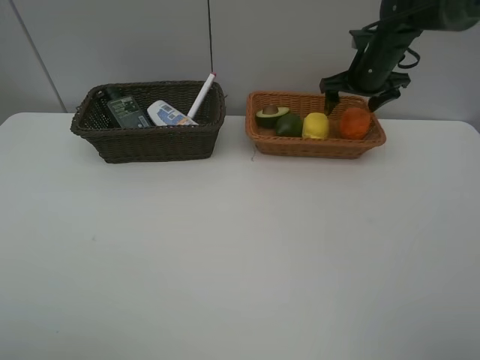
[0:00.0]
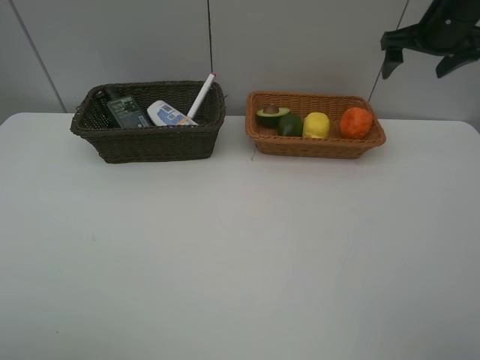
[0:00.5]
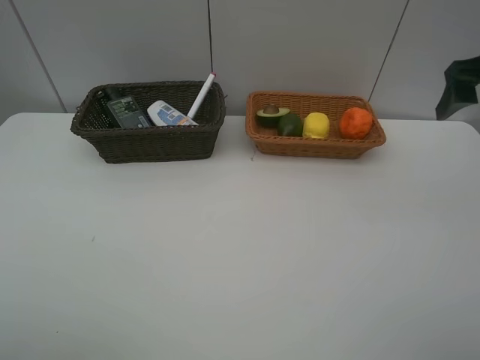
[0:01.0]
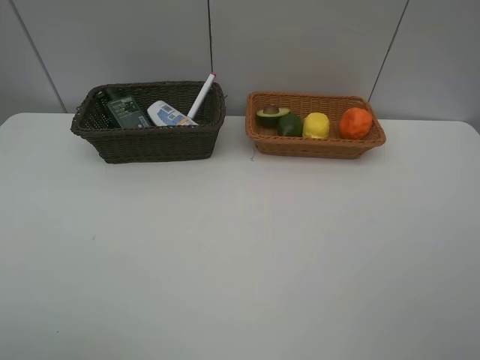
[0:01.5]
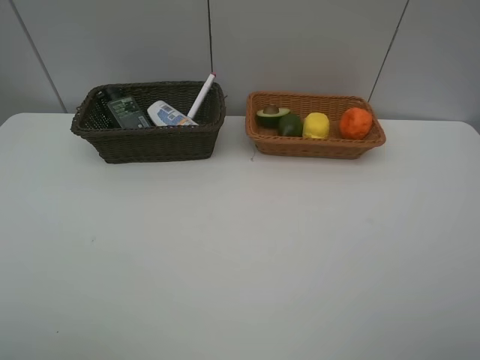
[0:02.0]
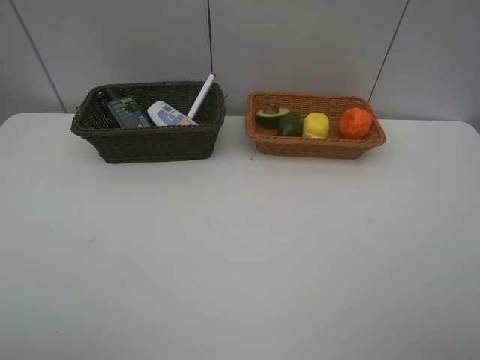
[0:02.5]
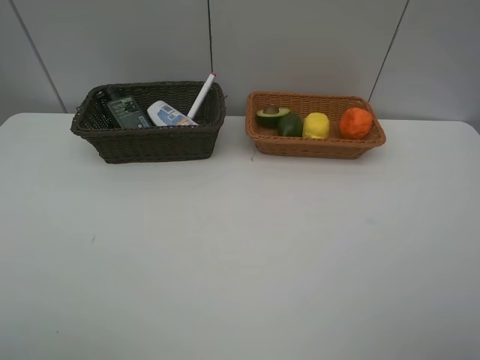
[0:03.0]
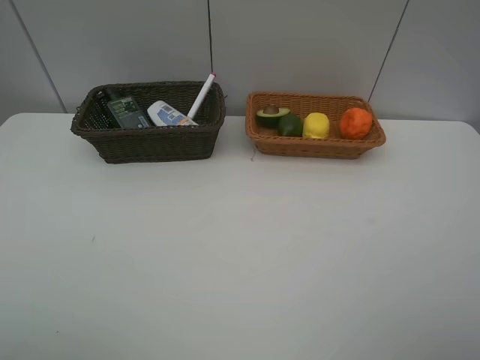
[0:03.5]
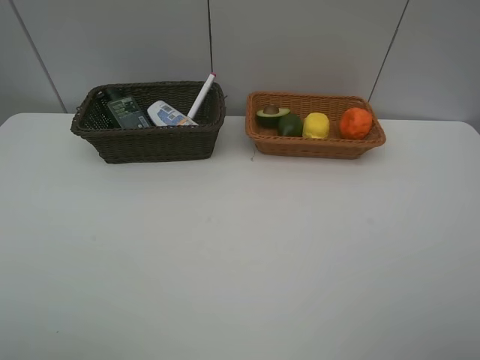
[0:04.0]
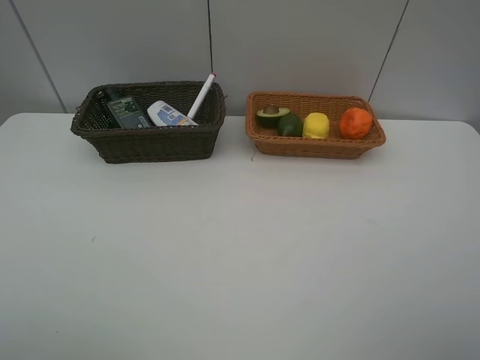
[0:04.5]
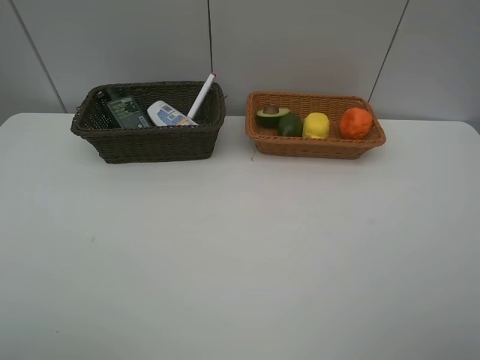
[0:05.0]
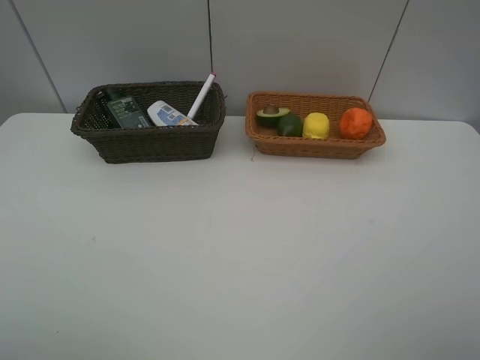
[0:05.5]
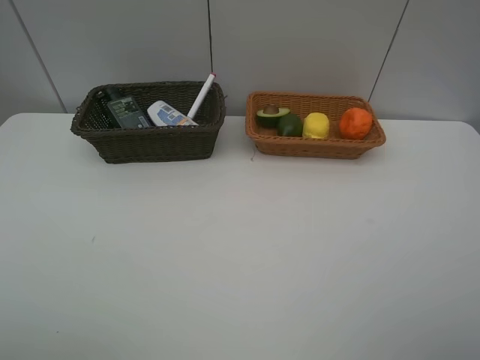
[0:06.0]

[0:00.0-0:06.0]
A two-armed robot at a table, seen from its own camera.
Task of the whole recording: Place multiple objects separately in different baskets.
0:00.0 to 0:02.0: The right gripper is displaced backward by about 50 cm.
0:02.0 to 0:06.0: Neither gripper changes place.
